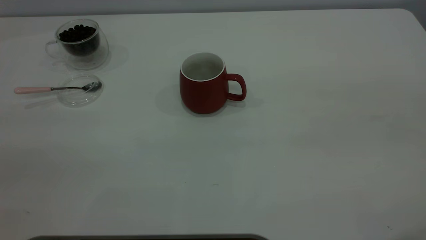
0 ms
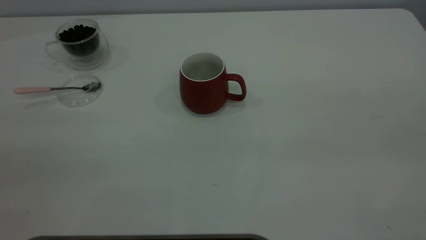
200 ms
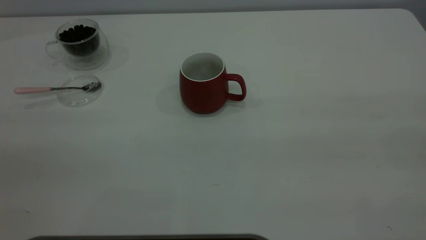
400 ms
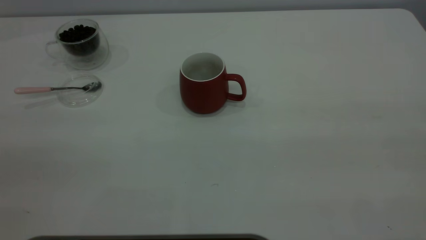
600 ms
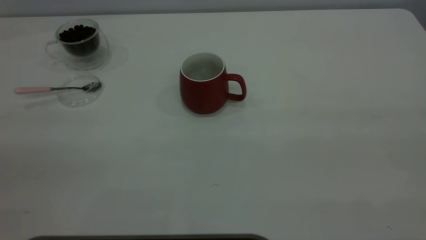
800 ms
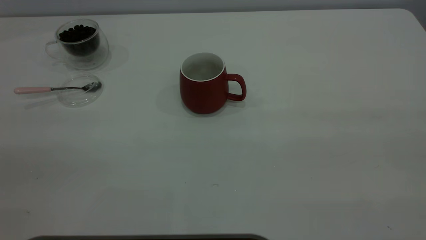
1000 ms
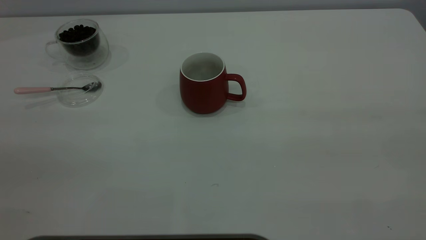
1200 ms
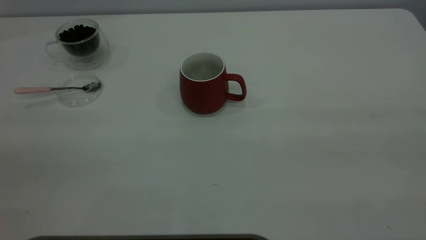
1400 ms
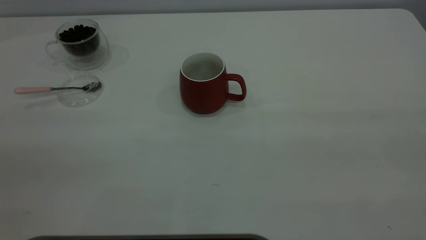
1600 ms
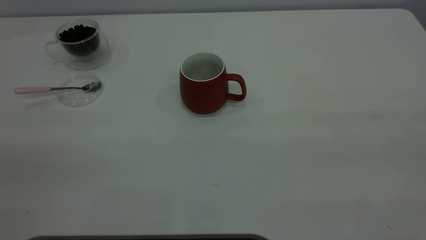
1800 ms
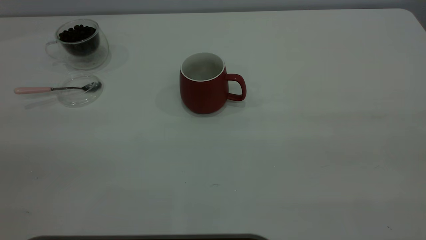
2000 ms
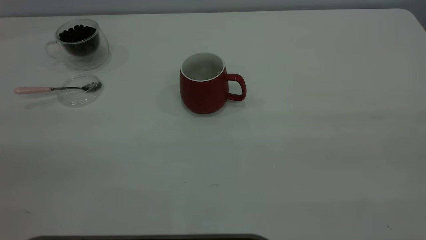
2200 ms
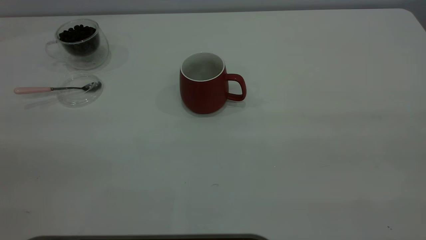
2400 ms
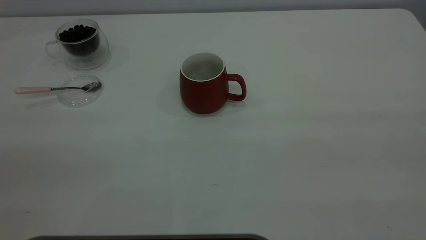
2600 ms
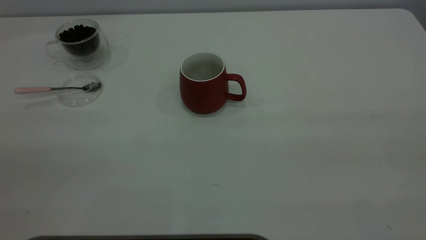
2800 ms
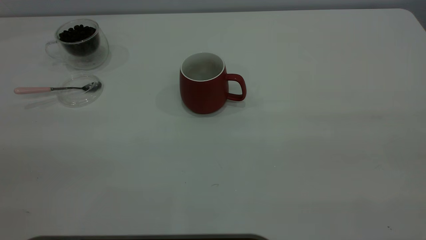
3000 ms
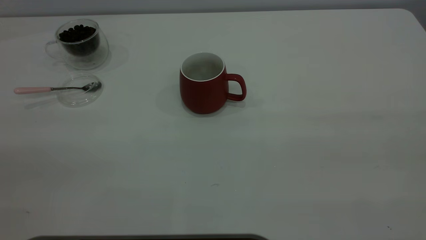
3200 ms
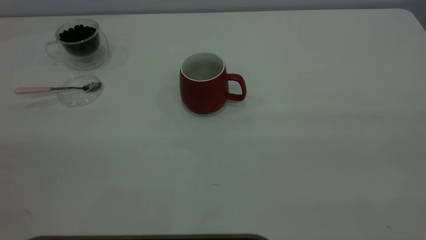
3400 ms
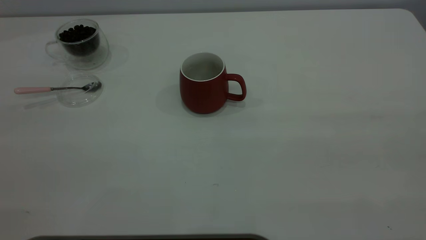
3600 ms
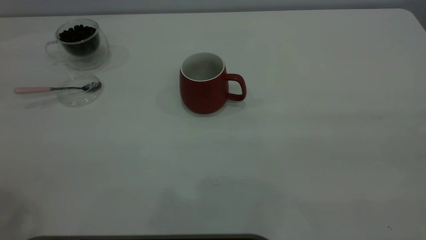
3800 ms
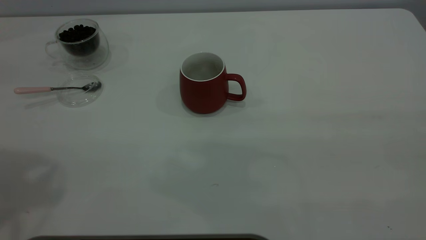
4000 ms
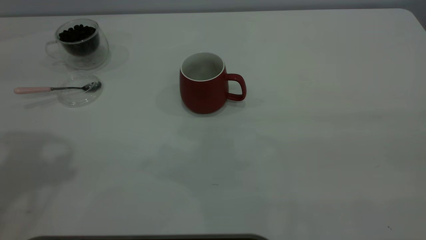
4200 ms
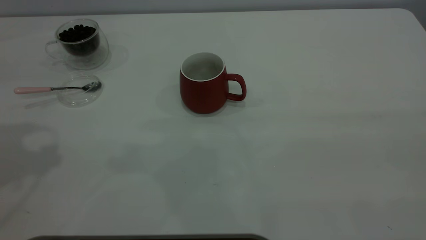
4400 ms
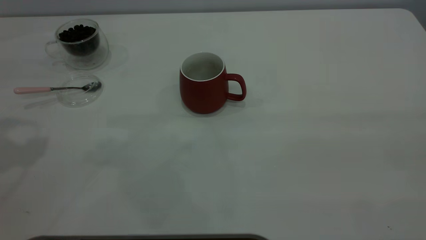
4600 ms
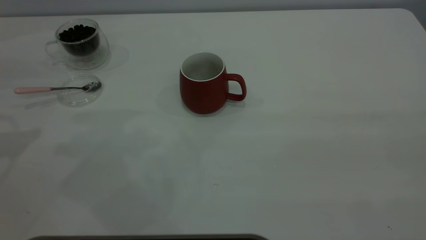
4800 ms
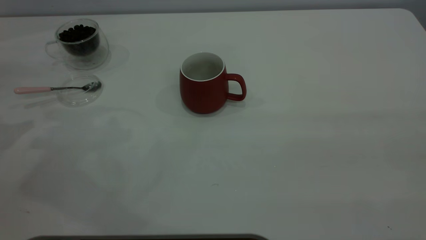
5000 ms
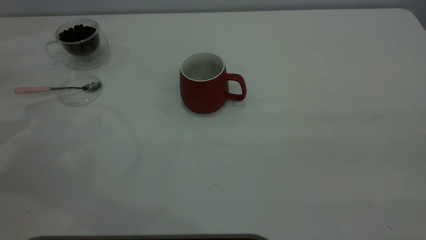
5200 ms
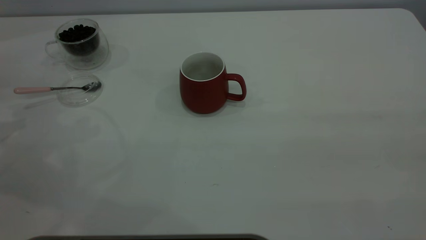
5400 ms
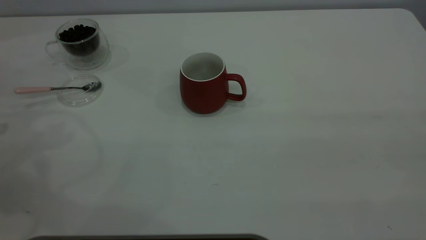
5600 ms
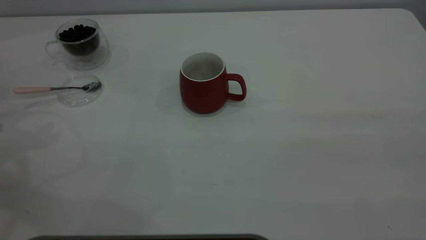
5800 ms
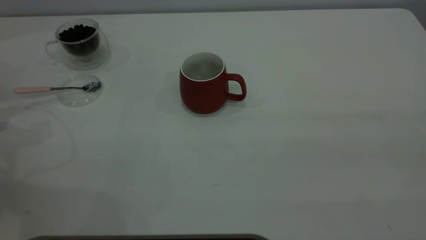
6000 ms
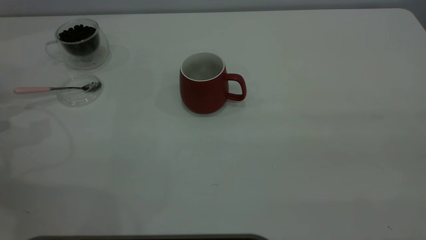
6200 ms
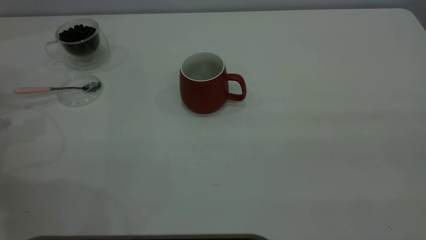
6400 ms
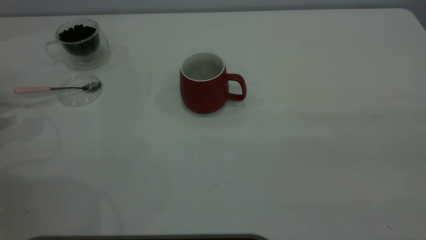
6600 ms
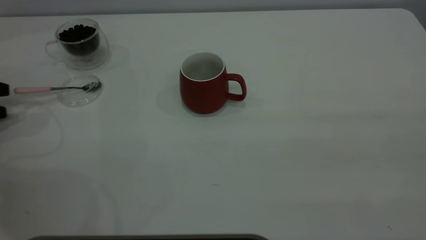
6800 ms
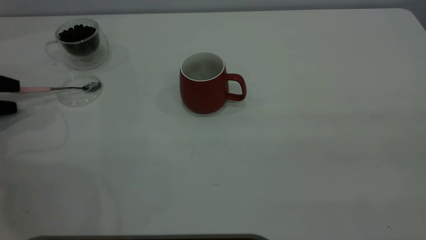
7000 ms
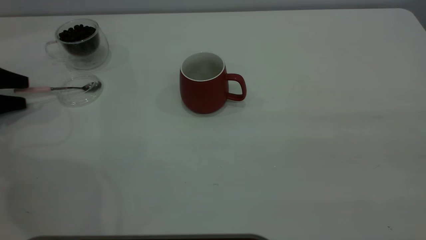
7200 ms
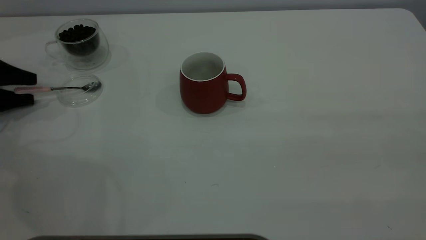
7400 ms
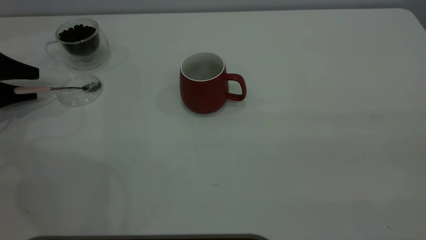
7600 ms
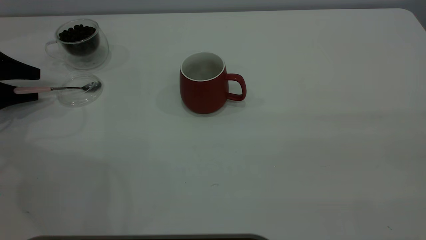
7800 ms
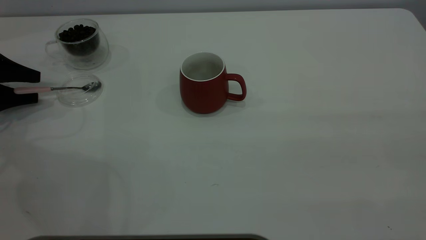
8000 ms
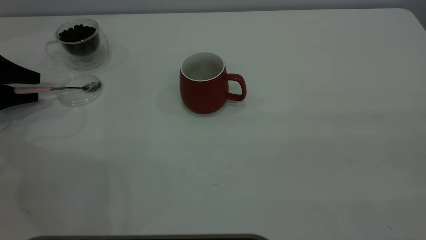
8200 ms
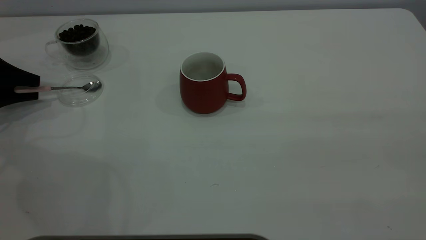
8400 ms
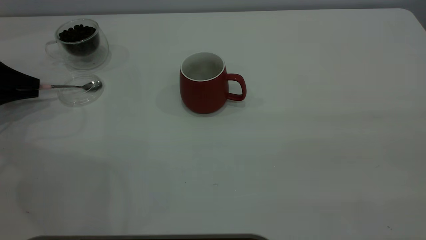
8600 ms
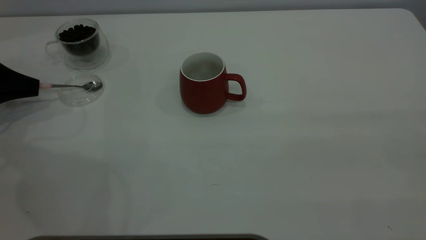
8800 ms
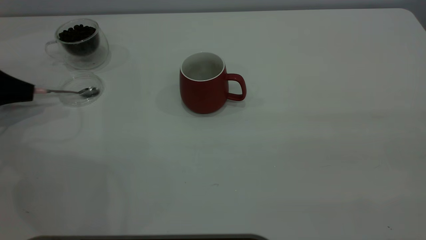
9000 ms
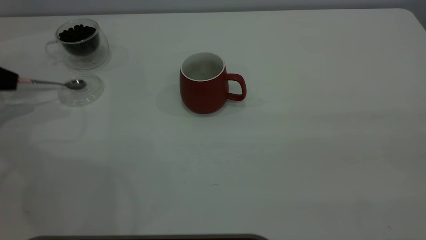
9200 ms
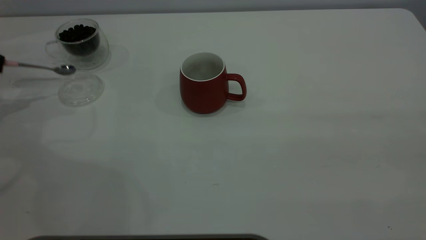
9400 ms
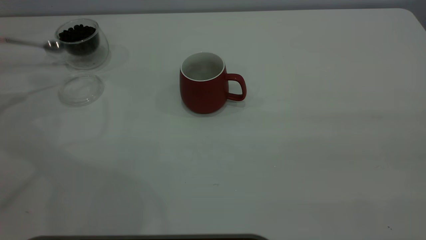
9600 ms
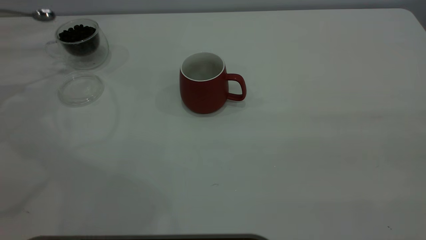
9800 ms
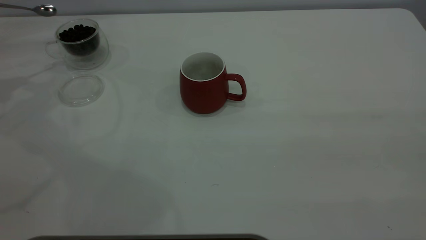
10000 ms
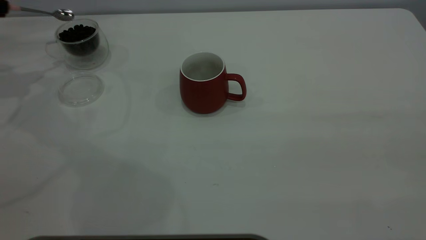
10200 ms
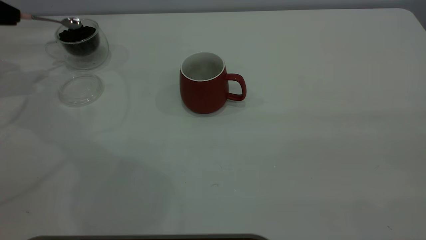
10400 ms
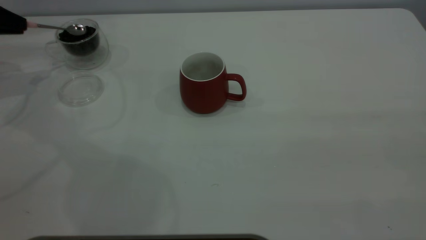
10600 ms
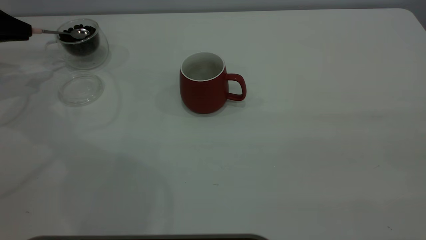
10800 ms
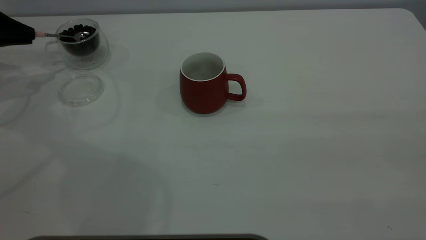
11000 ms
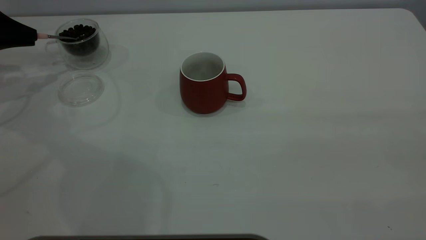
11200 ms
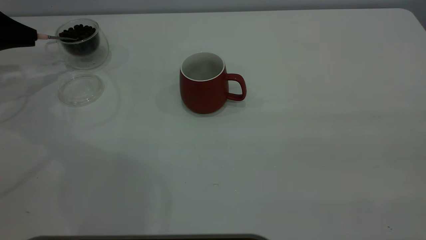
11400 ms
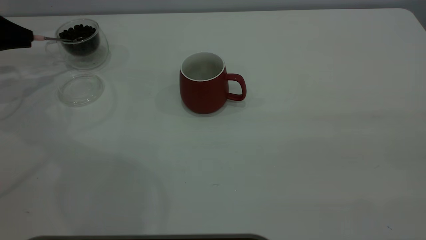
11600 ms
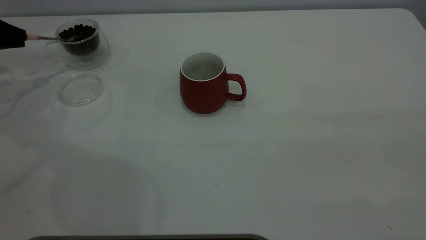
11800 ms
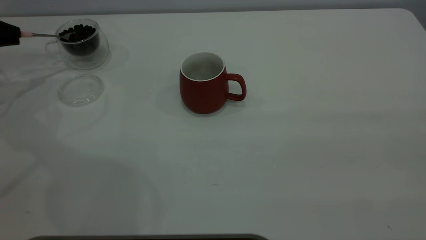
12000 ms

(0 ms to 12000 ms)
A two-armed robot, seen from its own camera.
Task of the whole recording: the right gripper place the red cup in the center of the table, the left gripper take the pink spoon from the cup lid and scoop out the coffee beans from the coffee cup and put them into the red cup, the left gripper put the spoon back into the cup lid.
Step, 0 ms - 9400 ms: Pick up the spoon.
1600 ms - 3000 ms: The two grippers keep their place.
6000 ms - 7600 ms: The left gripper travels forward and downward by roughly 10 cm.
7600 ms - 9000 ms: The left gripper closes up.
9000 ms - 10400 ms: The left gripper shifts some 10 cm upward and forward.

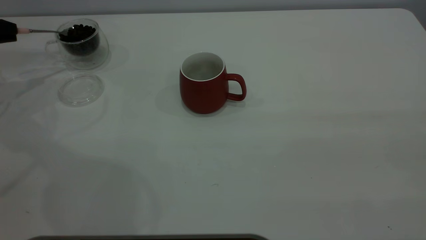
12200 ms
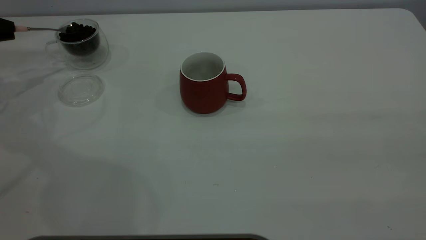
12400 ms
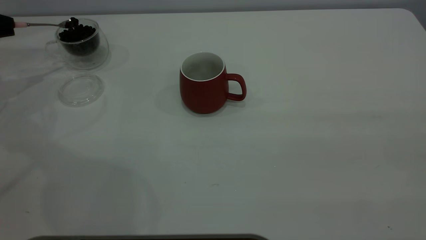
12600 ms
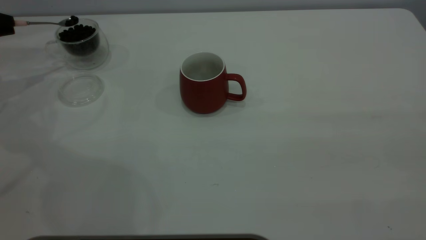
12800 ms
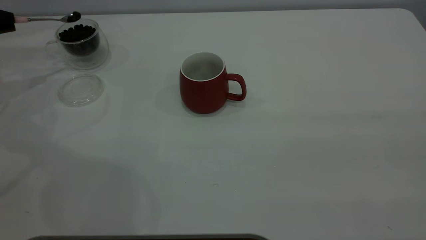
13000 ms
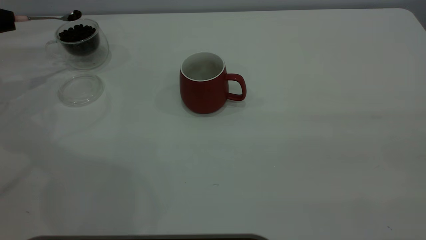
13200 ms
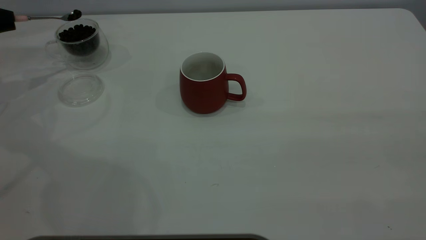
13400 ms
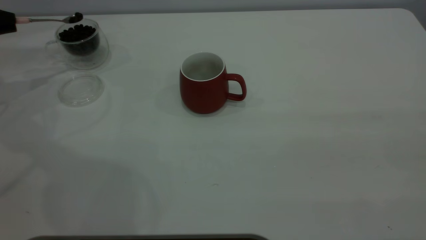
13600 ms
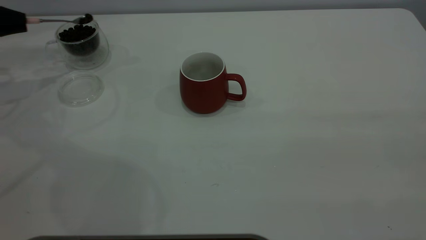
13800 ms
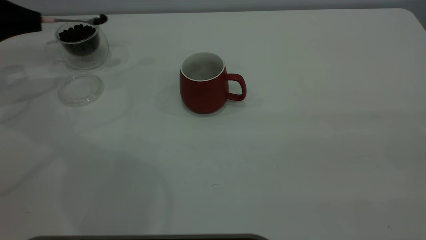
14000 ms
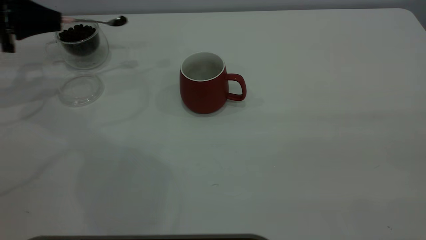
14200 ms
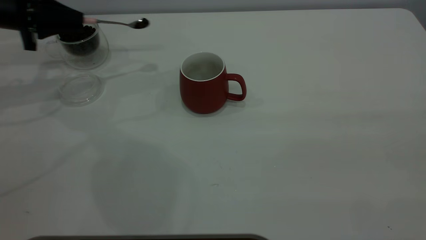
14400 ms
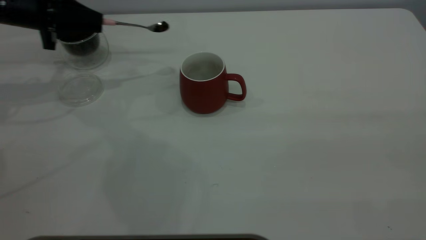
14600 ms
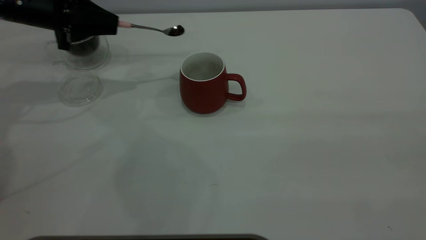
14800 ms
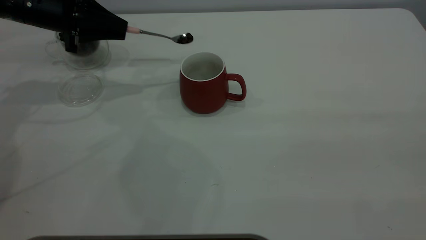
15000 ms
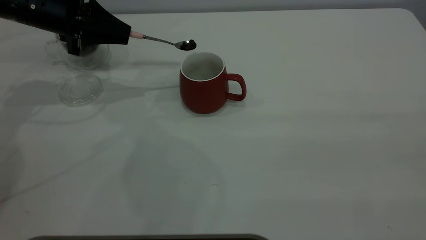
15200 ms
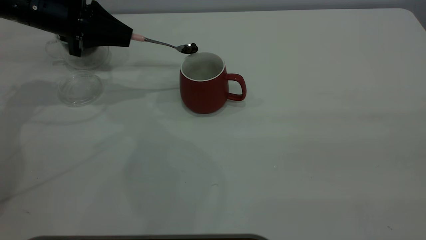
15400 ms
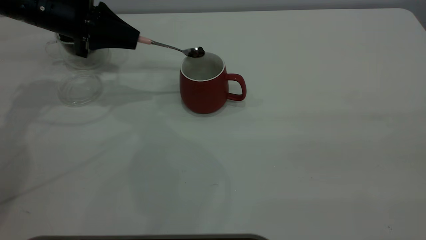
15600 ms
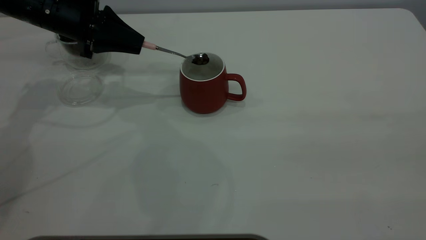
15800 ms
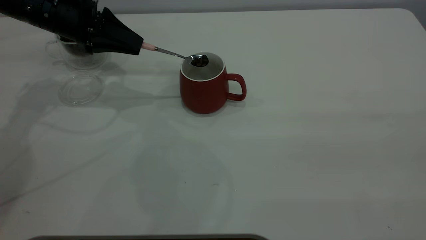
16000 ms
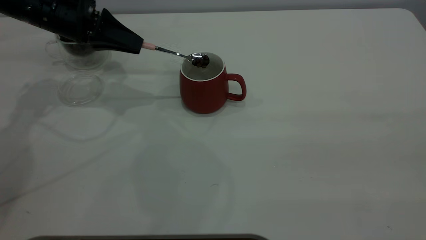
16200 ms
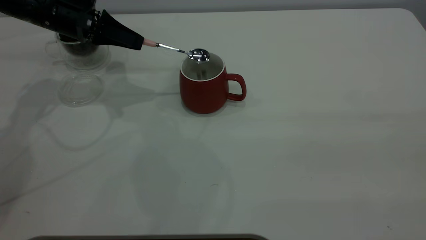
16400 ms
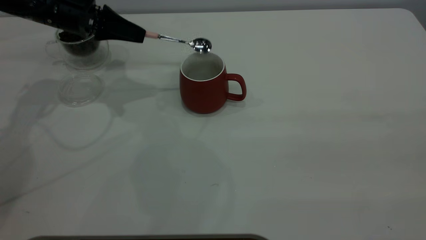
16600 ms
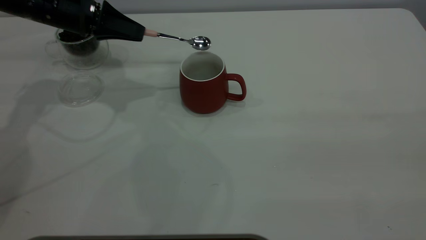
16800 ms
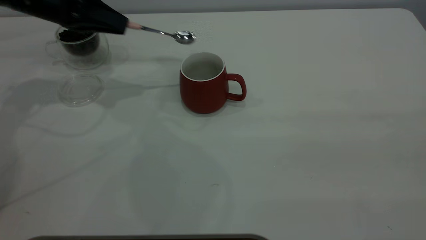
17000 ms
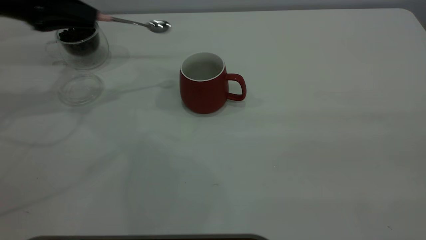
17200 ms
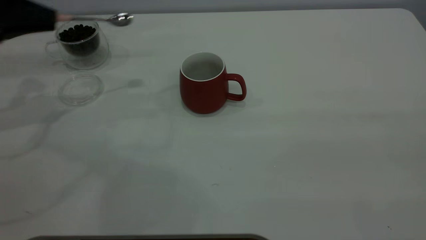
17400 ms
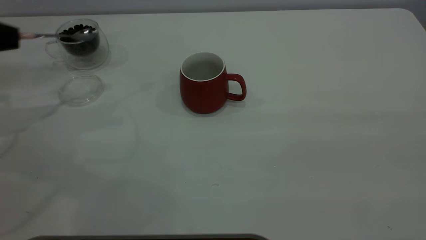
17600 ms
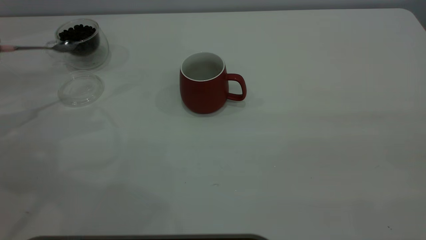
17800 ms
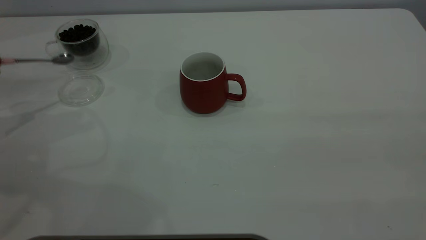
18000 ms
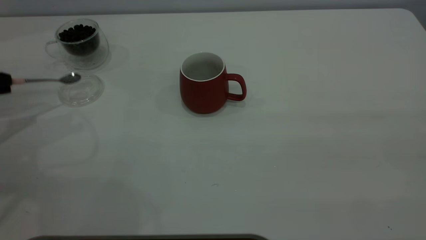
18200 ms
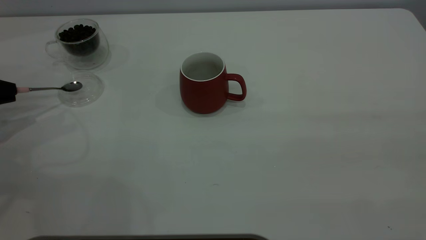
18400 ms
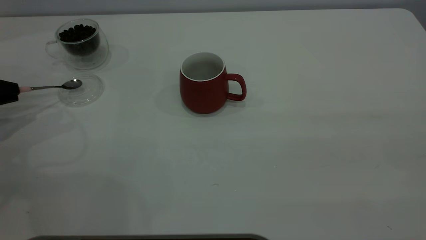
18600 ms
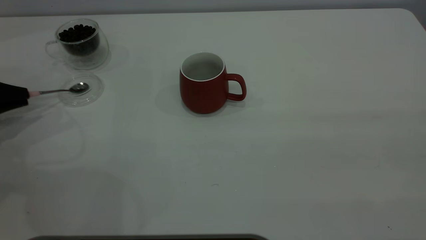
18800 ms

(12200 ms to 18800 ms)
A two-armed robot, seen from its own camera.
Task of the whole recording: the right gripper place the red cup in the center of the table, the left gripper take the pink spoon from the cup lid and scoop out the coffee beans from the coffee cup and put them into the red cup, the left gripper put the spoon back into the cup lid.
Step, 12200 ms - 17000 ms: Scoop a spoonful of beans into the cup.
13800 ms - 15400 ms: The left gripper goes about 15 cm to the right.
15400 ms - 17200 ms: The left gripper travels to the left by some 5 cm.
17200 ms - 18800 ms: The left gripper moves downward, to the left and backward, approximately 20 cm.
